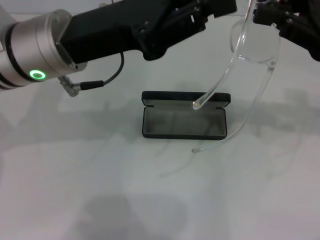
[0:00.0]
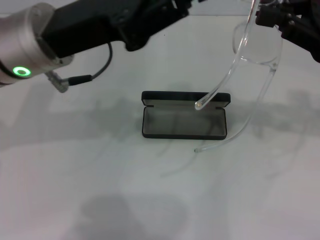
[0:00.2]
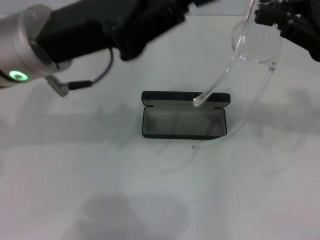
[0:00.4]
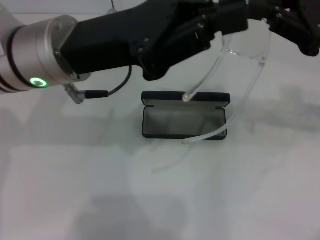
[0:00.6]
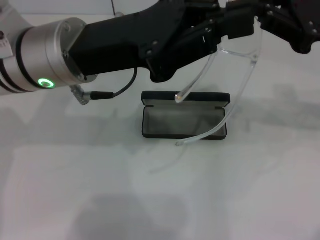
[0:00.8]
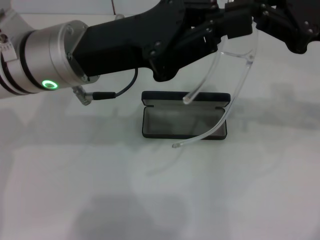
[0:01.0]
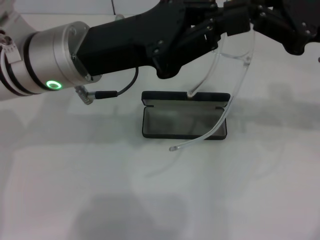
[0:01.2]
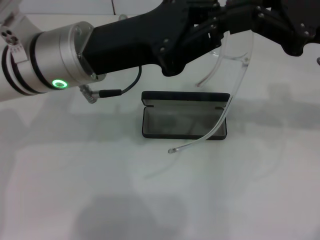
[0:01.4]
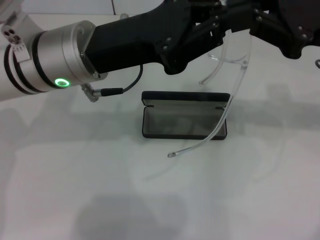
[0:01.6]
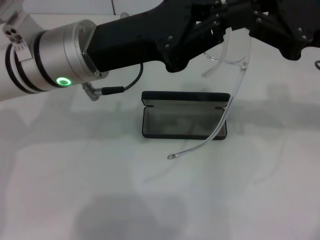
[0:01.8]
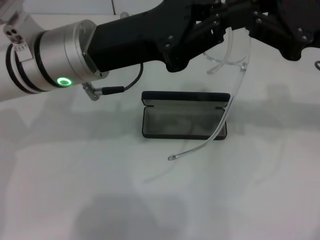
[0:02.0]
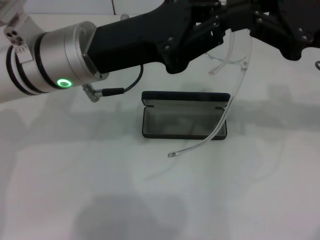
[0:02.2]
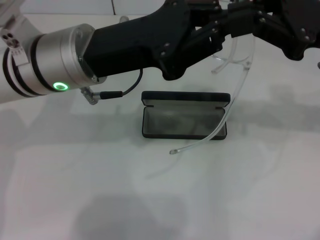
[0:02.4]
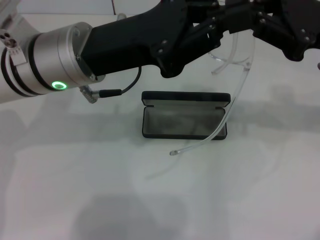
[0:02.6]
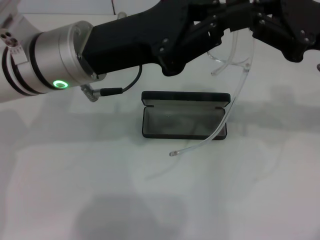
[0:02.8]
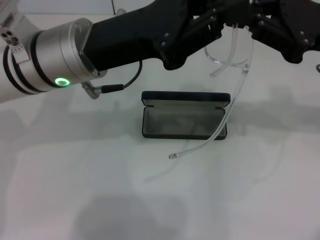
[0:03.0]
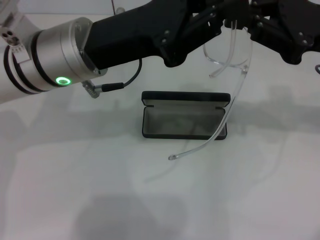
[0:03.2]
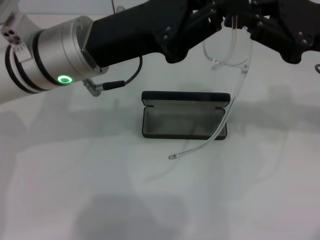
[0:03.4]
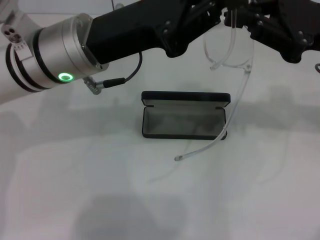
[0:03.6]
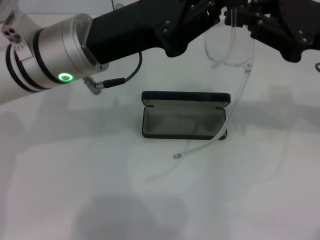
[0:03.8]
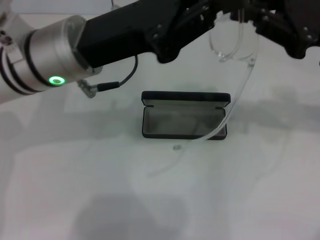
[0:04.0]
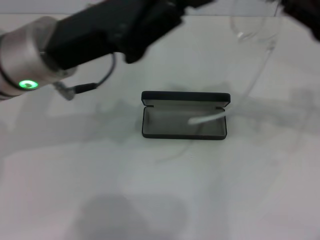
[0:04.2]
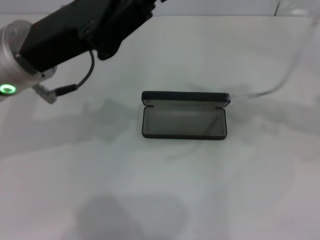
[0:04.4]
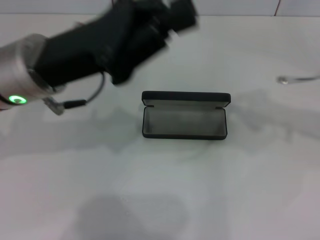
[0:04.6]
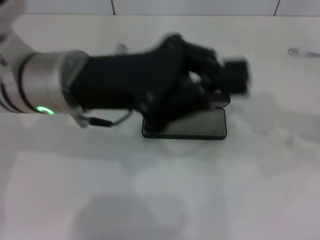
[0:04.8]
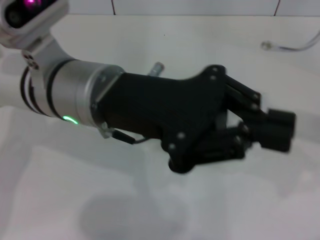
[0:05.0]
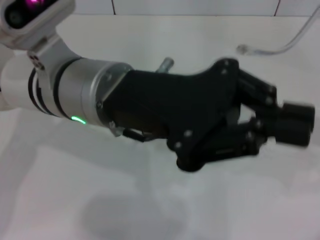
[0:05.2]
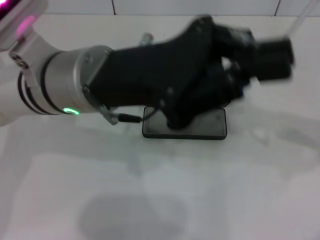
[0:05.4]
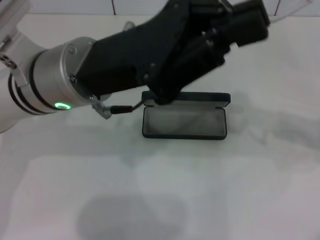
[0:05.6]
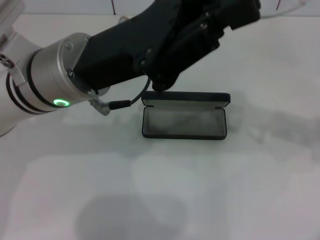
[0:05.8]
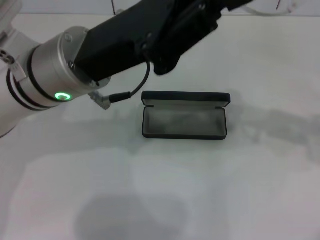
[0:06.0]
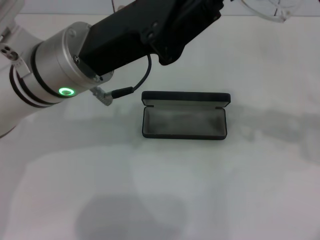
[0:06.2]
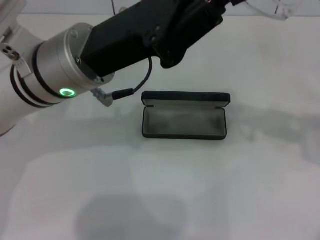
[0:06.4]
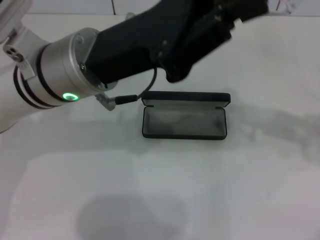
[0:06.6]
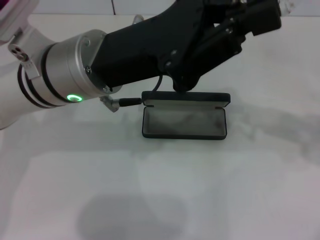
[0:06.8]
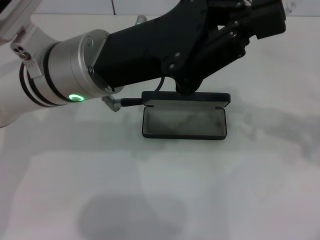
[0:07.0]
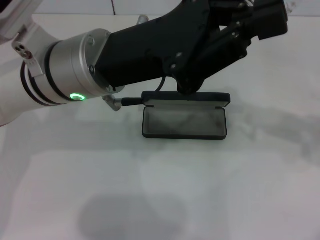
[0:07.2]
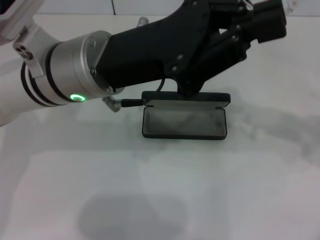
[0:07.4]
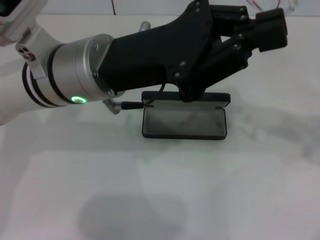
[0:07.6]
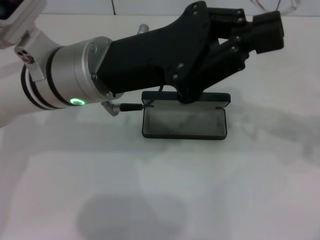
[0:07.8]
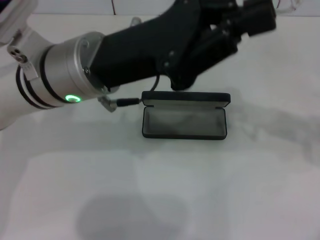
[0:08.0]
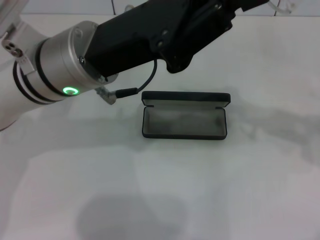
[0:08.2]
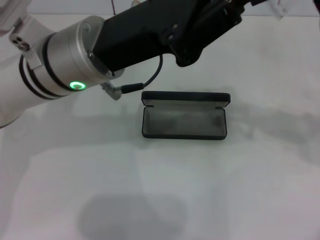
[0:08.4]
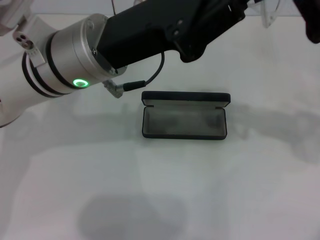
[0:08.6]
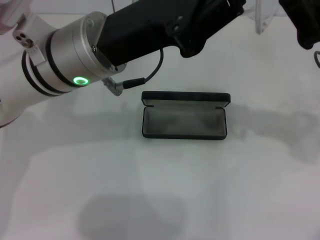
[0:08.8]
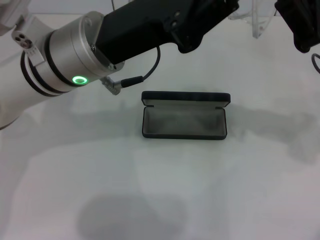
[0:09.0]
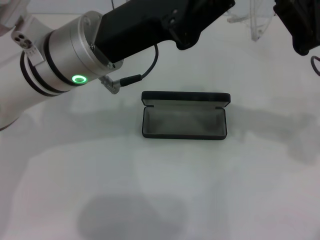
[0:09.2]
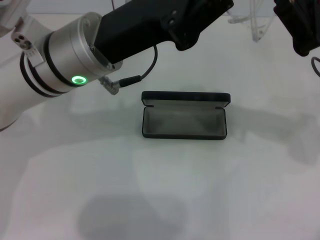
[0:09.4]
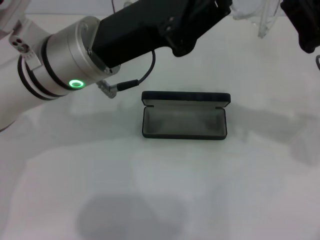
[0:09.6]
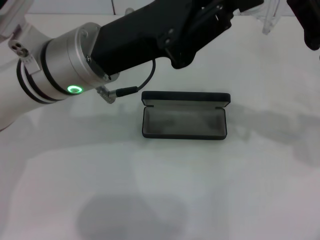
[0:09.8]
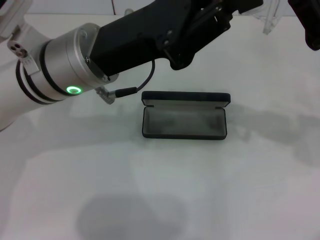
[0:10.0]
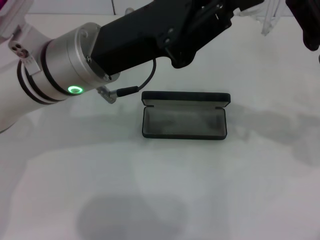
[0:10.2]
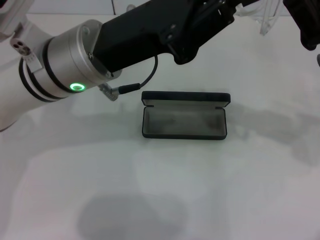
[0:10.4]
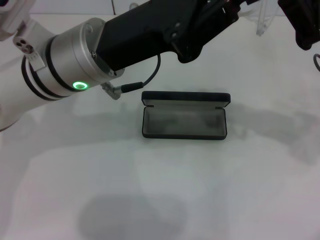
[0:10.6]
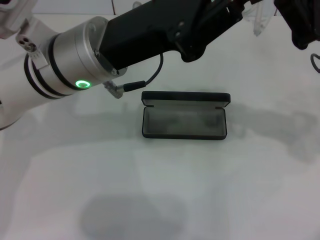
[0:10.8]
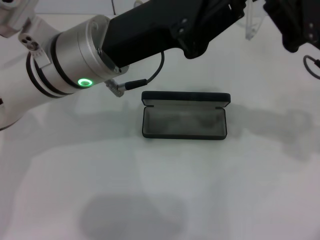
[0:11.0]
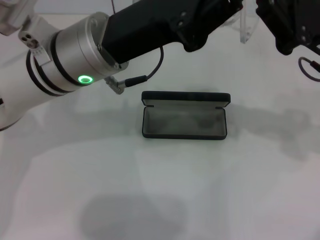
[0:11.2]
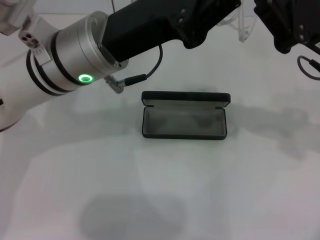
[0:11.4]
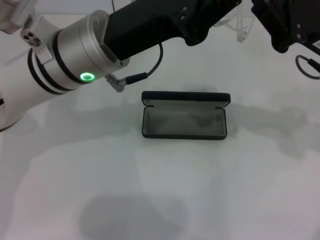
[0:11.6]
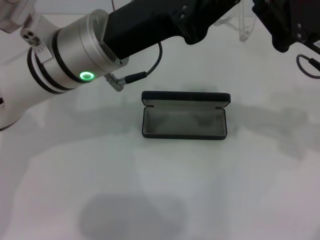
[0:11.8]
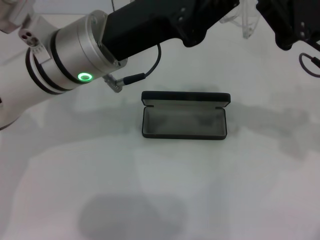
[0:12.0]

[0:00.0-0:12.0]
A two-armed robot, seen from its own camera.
Step, 0:00.0 to 0:12.0: Fold the frame with your left hand.
0:00.0 to 0:01.6: The grippers move only a little.
0:01.6 to 0:03.0: Neither gripper changes place.
0:03.0 to 0:04.4: The right gripper heads to the right, covering approximately 5 cm.
0:04.4 to 0:06.0: The right gripper shifts by approximately 5 cm. The left gripper travels to the right by approximately 5 cm.
0:09.0 to 0:10.4: Neither gripper changes place.
0:10.4 to 0:12.0: The grippers move only a little.

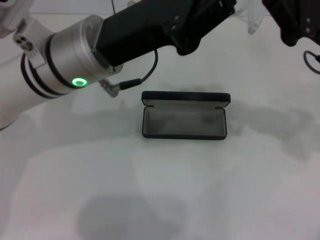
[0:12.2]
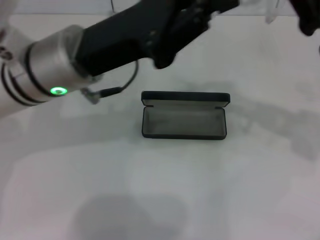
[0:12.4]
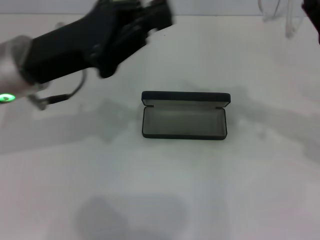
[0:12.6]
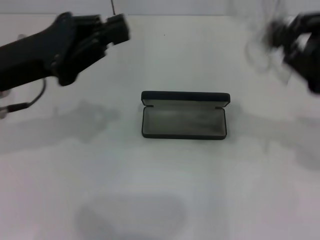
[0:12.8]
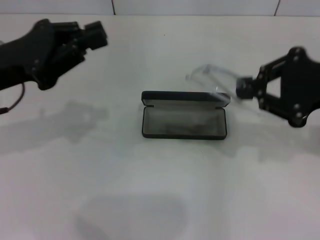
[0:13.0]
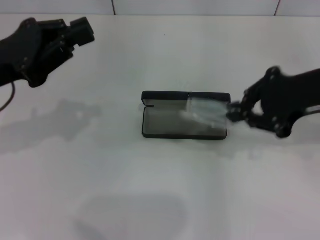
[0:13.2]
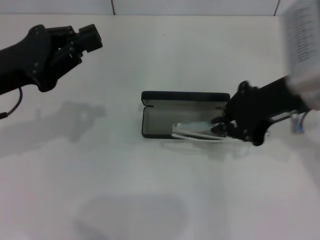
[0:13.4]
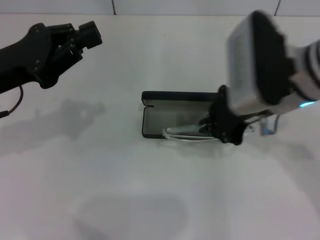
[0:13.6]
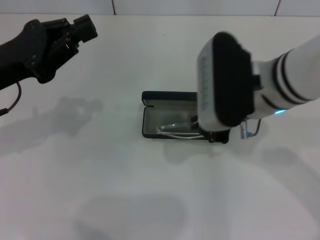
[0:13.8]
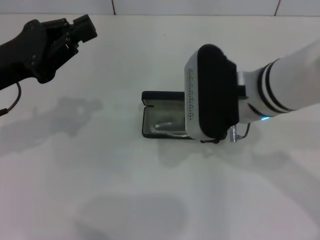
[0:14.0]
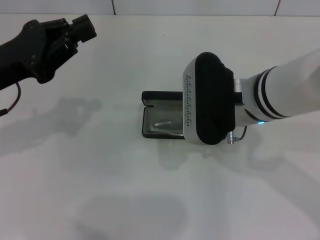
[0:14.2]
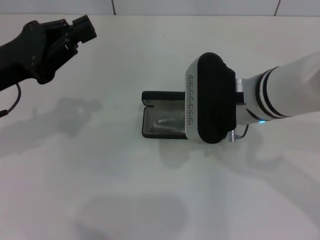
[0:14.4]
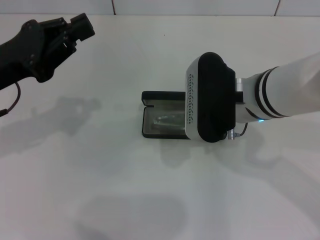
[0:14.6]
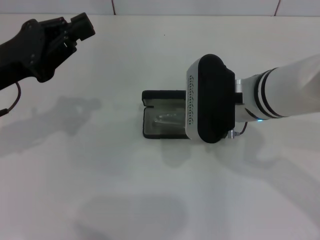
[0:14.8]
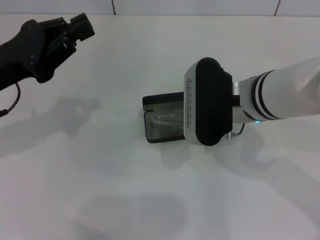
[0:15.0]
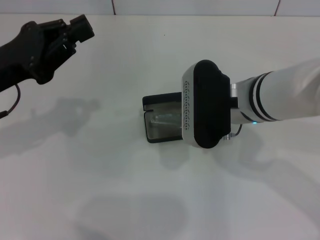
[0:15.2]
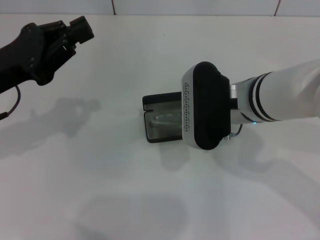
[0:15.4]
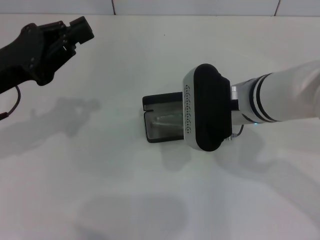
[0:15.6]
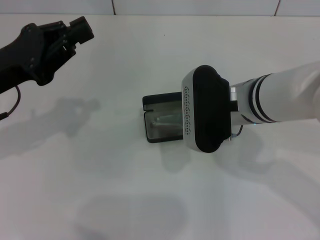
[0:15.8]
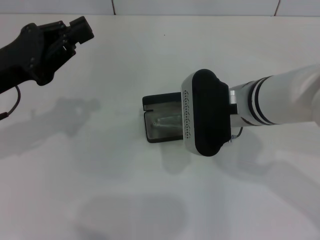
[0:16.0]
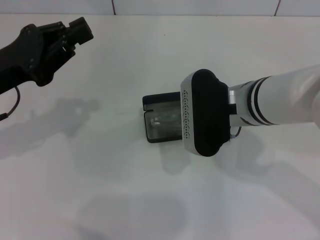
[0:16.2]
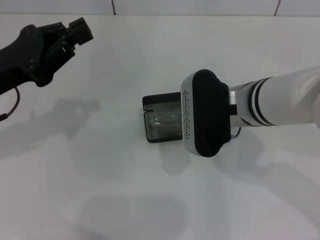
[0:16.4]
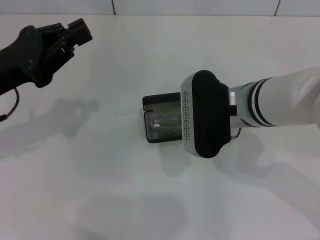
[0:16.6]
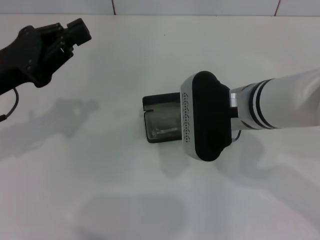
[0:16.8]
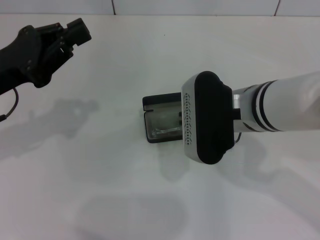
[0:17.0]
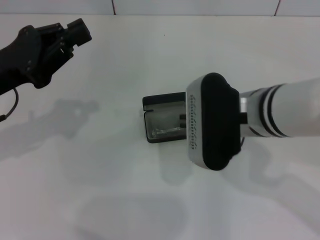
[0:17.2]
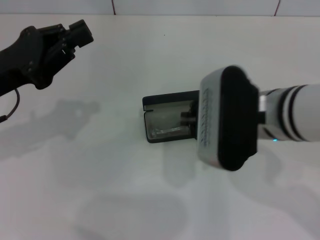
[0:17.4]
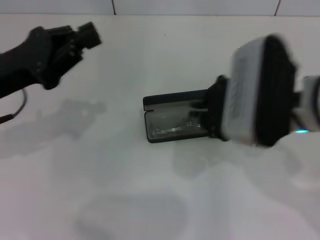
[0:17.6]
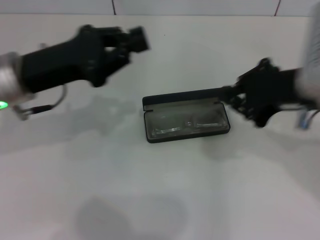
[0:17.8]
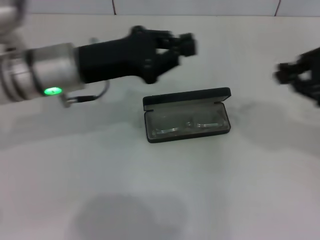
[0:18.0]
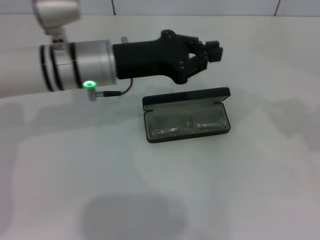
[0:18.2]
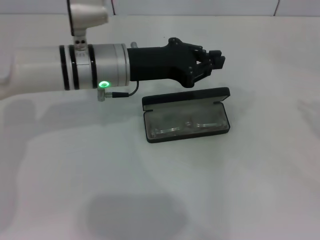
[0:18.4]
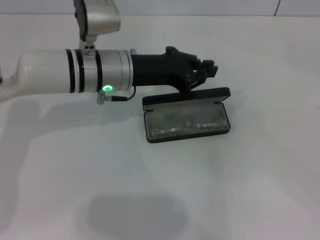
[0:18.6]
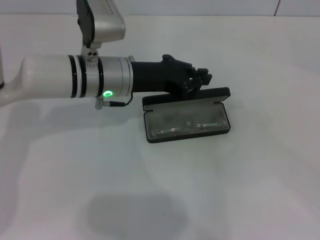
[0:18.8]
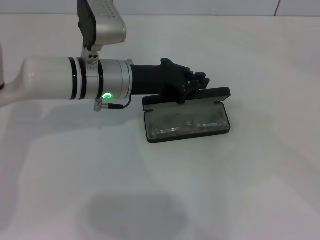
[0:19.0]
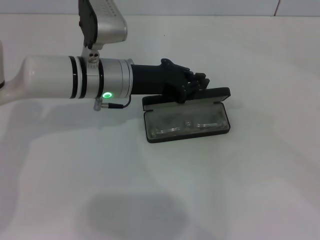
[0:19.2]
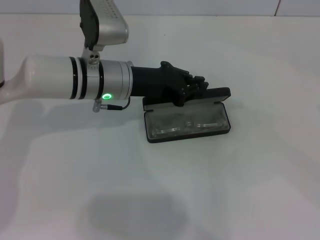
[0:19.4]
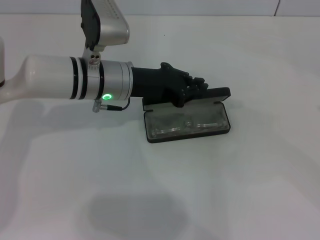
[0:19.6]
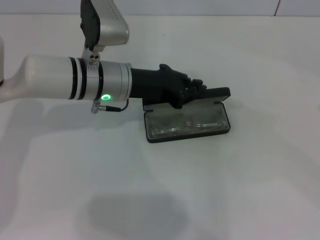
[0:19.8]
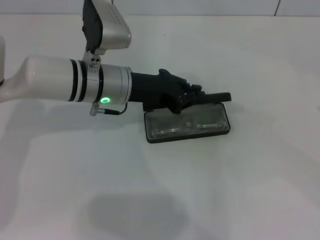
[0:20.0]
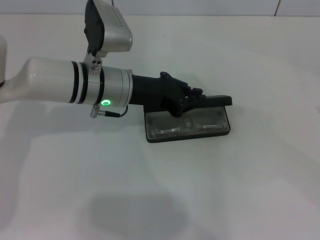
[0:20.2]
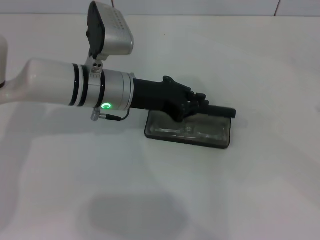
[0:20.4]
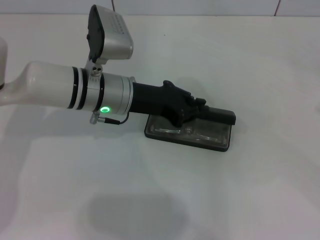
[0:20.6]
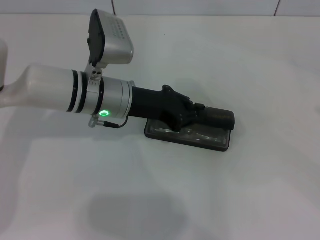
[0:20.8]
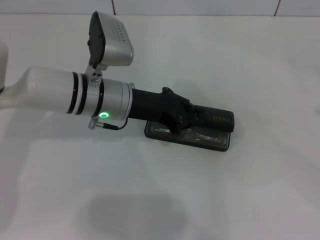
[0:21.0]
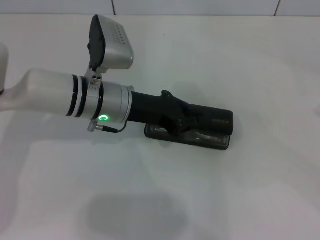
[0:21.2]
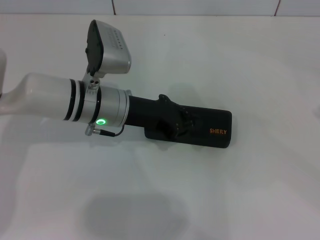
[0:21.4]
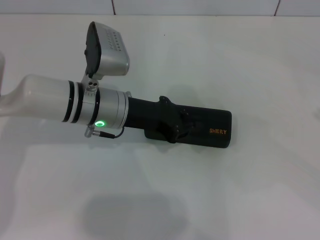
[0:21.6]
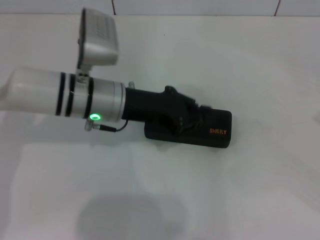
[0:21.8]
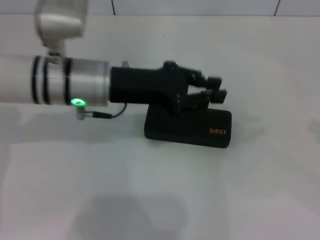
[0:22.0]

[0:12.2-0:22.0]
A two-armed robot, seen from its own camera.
Step, 0:12.2 to 0:16.8: Put the glasses into the case with your right hand.
Step, 0:17.0 to 0:21.4: Close the glasses case with your left hand.
0:12.2 to 0:13.6: The left gripper goes approximately 15 cm to the left. Meanwhile the right gripper shifts approximately 10 cm to the left.
0:13.6 to 0:15.0: The right gripper is displaced downward by approximately 5 cm.
0:15.0 to 0:16.4: Neither gripper changes place.
0:16.4 to 0:17.8: The right gripper is displaced to the right and upward by some 10 cm, while the left gripper shifts by roughly 5 cm.
0:17.8 to 0:19.2: The left gripper is displaced to the right and forward by approximately 15 cm, while the right gripper shifts about 25 cm to the right.
0:19.2 to 0:20.6: There are only small adjustments of the grippers.
0:20.6 to 0:22.0: The left gripper shifts by about 5 cm.
